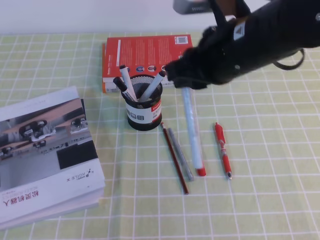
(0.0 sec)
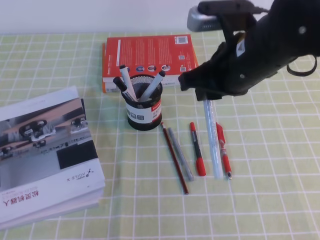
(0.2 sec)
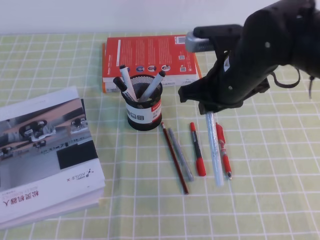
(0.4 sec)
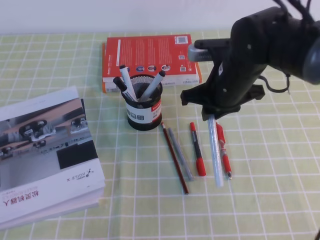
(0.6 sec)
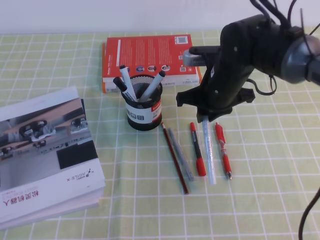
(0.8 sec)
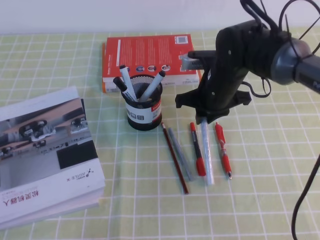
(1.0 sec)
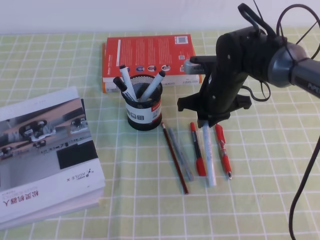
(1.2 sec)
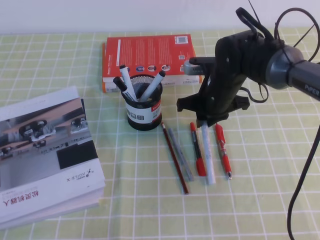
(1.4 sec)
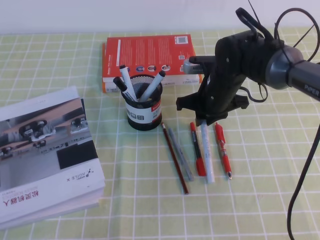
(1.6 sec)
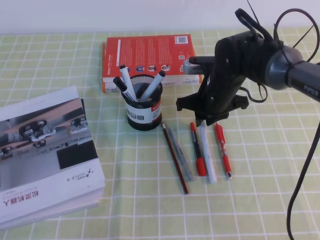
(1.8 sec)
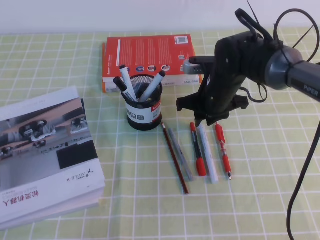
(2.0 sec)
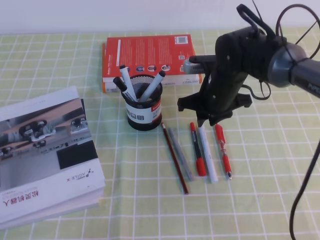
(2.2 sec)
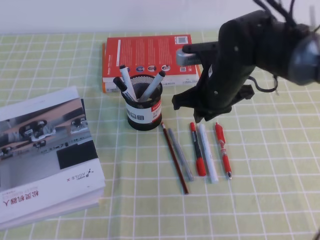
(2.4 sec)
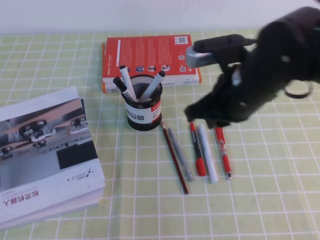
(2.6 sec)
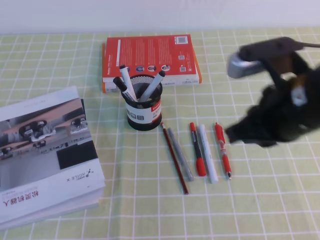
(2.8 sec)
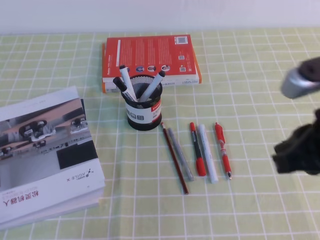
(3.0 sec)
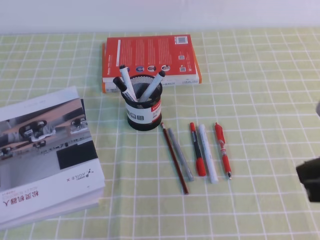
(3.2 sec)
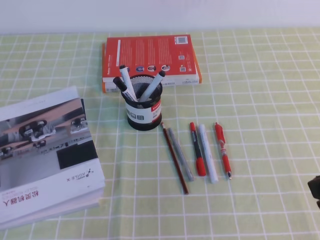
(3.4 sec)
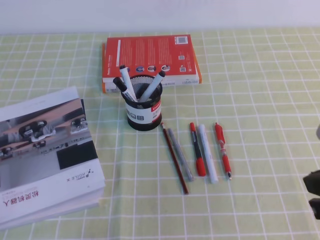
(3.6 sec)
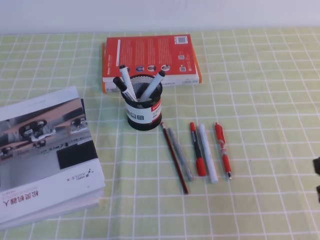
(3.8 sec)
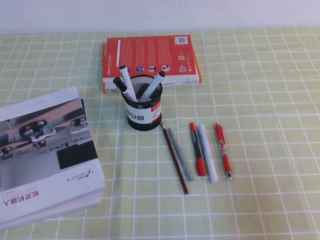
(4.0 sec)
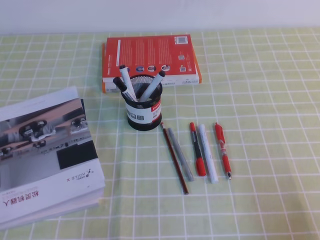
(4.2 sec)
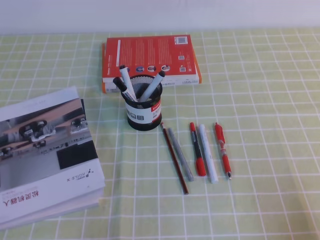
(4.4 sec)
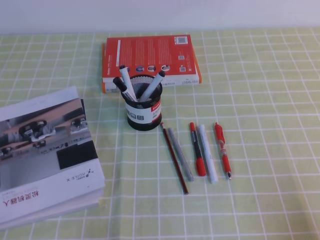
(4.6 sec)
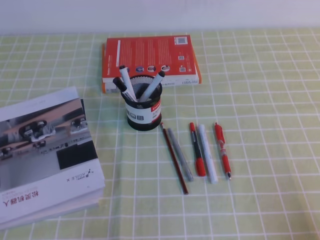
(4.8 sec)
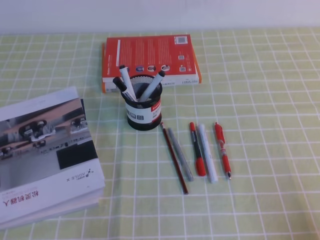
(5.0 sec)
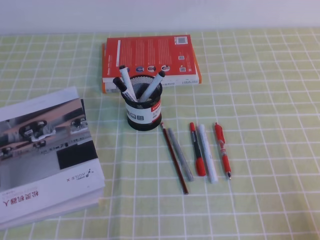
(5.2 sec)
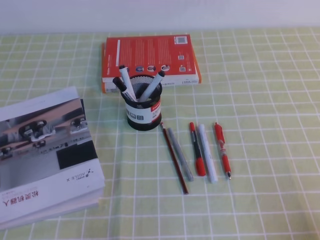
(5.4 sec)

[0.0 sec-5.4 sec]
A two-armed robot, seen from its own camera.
Step, 0.0 sec to 5.4 sec: Pick up the pen from the pen holder.
0.0 sec to 1.4 sec: The right gripper moves downward and forward, roughly 20 cm.
1.4 sec to 2.8 sec: The right gripper goes about 20 cm backward and upward.
2.8 sec to 4.0 sec: The right gripper shifts approximately 20 cm to the right, backward and downward.
4.0 sec to 5.4 sec: The right gripper heads downward and backward, covering approximately 10 cm.
